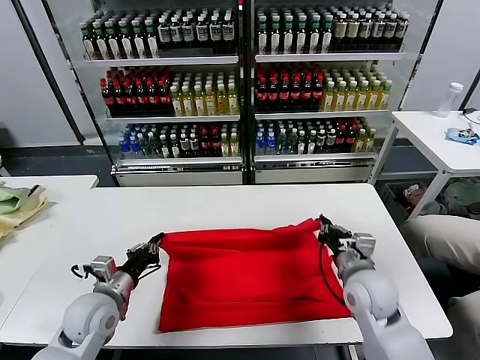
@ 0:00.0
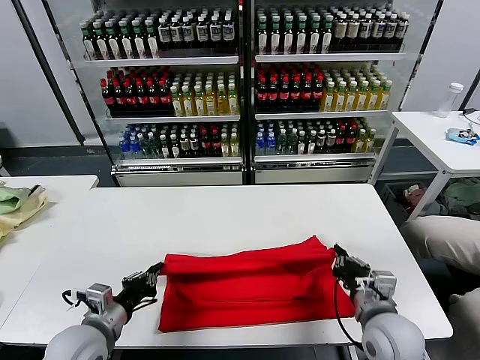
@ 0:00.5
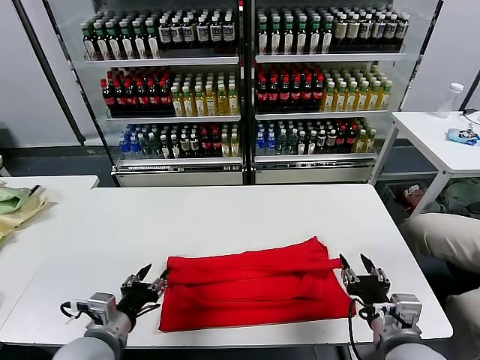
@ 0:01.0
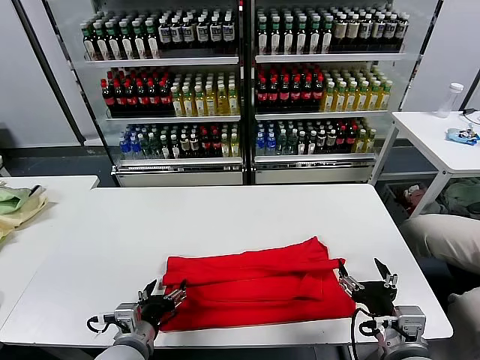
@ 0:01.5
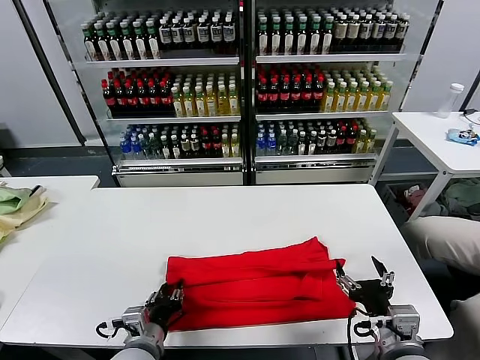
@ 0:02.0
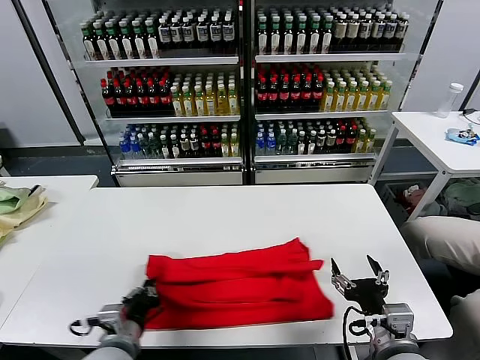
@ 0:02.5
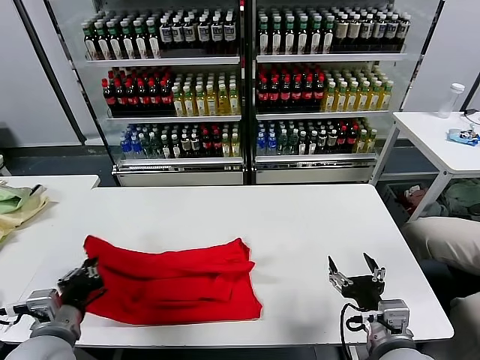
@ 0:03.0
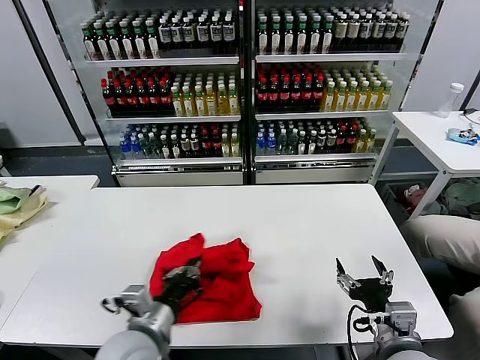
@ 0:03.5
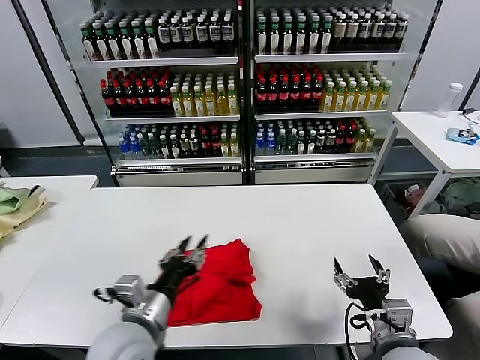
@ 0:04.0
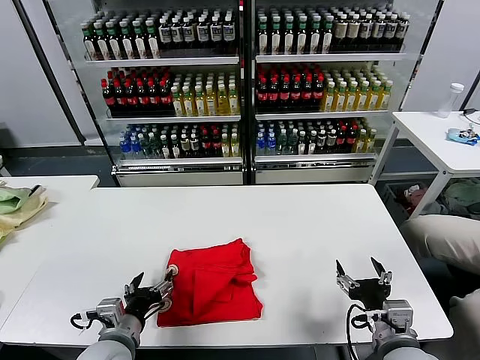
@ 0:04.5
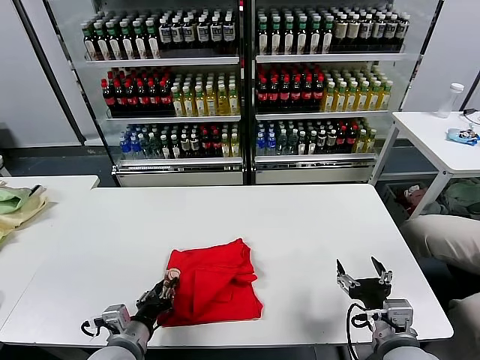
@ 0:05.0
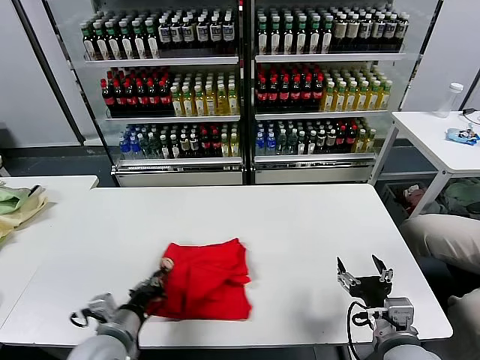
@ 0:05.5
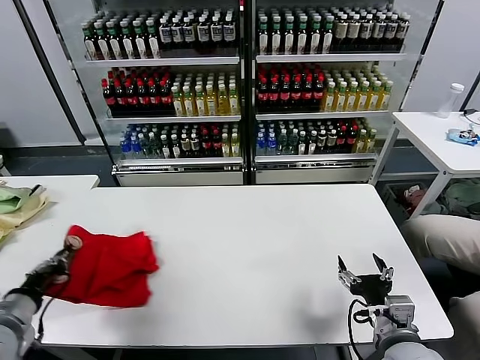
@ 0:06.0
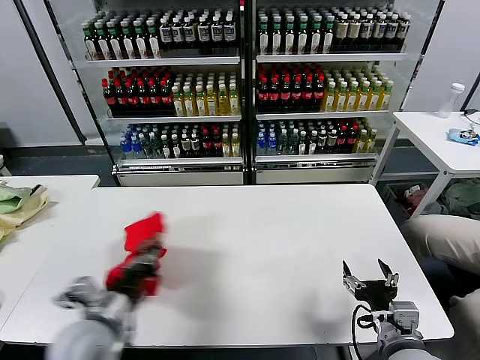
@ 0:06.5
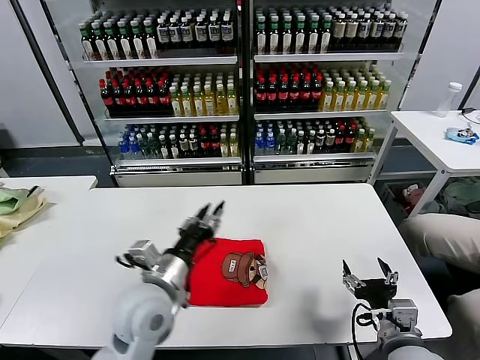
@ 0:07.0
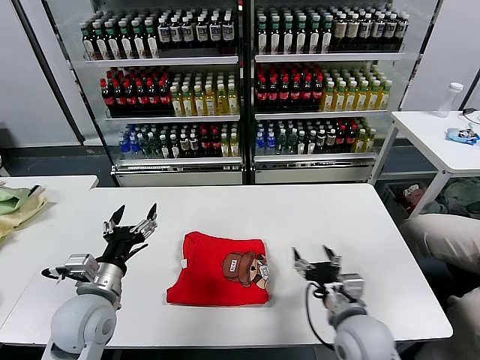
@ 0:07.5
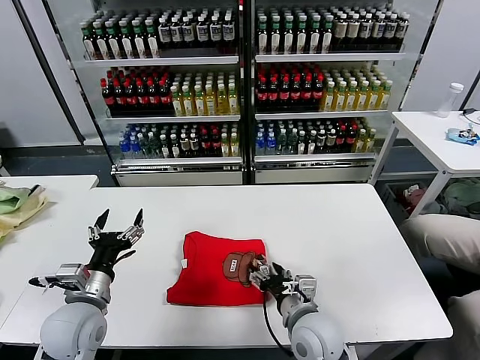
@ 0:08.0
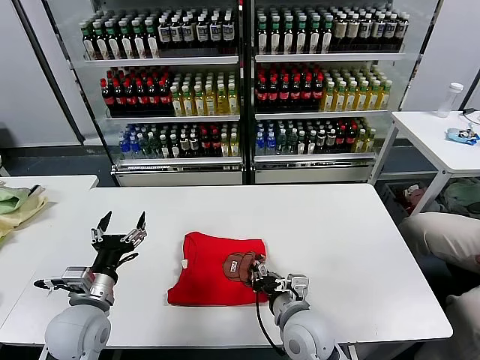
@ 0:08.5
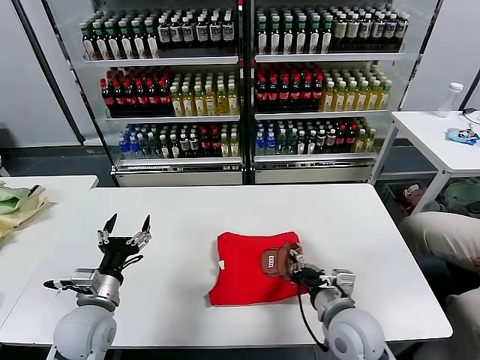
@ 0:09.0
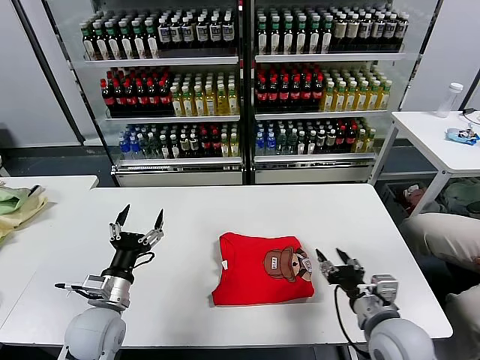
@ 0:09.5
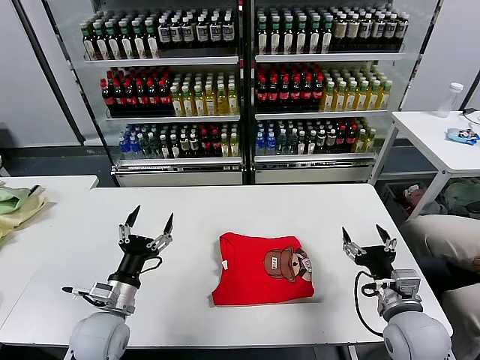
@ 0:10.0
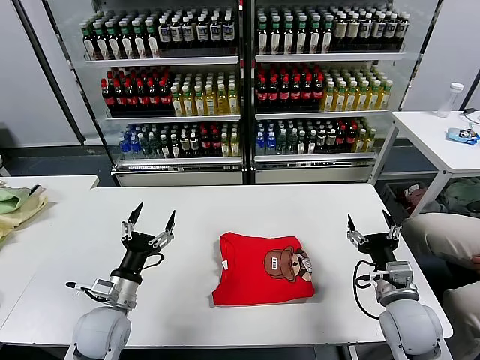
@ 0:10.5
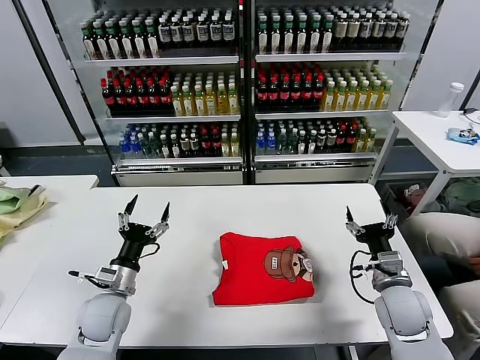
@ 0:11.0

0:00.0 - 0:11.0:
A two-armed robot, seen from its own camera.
Task of the whole recording: fold and organize the clothes.
Step, 0:01.0 - 0:02.0: use the left gripper to clamp the left edge of the fabric.
Step, 0:02.5 - 0:03.5: use the left gripper to drag the left edge of the fabric to the left and folds it over the right edge.
Step, 0:04.0 - 0:06.5: Flip the folded clothes over with left gripper.
Step, 0:07.0 - 0:09.0: Drag the clothes to the center of the table.
0:00.0 - 0:02.0: The right gripper shifts some 15 cm backward, and opens; the left gripper goes about 15 cm backward and to the right, and opens its fingers.
0:02.0 - 0:03.5: The left gripper moves upward, roughly 10 cm, goes to the left and returns, about 15 cm each way, and closes up.
0:03.5 - 0:05.5: The left gripper is displaced downward and to the left by about 10 cm, and opens and closes again.
0:05.5 - 0:07.5: The right gripper heads forward, covering roughly 5 cm, while the left gripper goes left and right, about 25 cm each way, reversing 2 times, and opens its fingers.
0:07.5 - 0:09.0: The right gripper reaches roughly 10 cm to the left, then returns, and closes up. The left gripper shifts by roughly 5 cm.
0:09.0 - 0:11.0: The right gripper shifts approximately 10 cm to the right, and opens its fingers, while the left gripper ends up some 5 cm from where it was.
